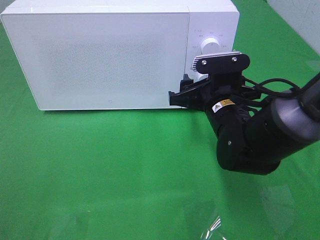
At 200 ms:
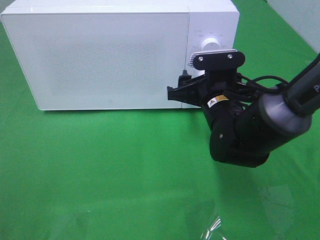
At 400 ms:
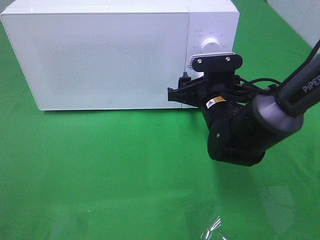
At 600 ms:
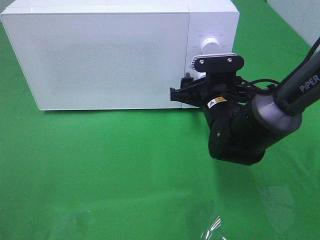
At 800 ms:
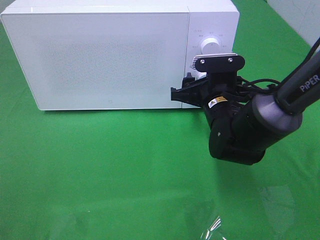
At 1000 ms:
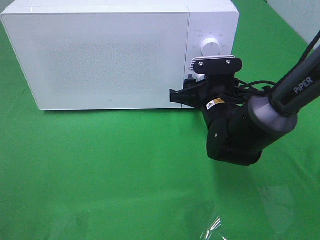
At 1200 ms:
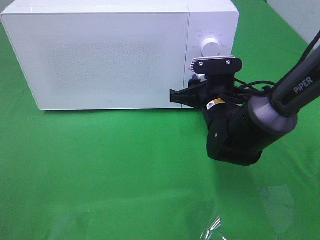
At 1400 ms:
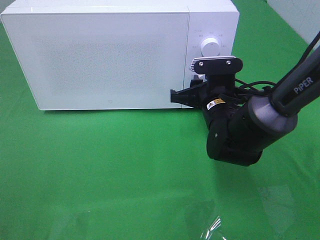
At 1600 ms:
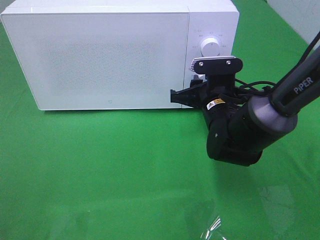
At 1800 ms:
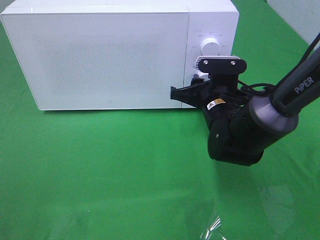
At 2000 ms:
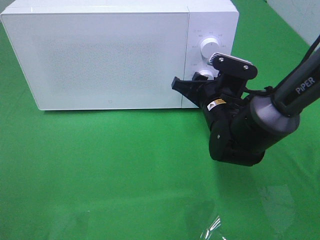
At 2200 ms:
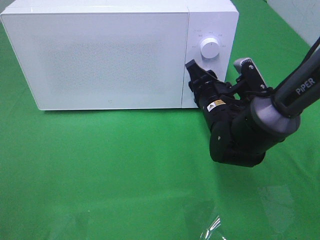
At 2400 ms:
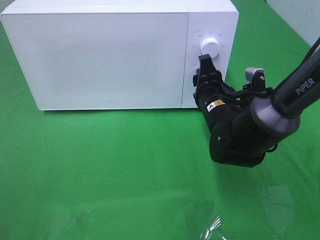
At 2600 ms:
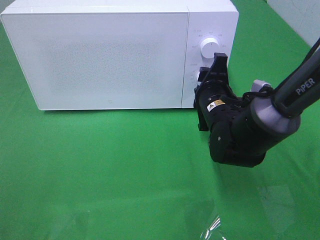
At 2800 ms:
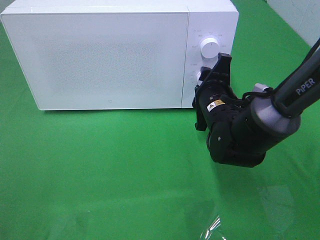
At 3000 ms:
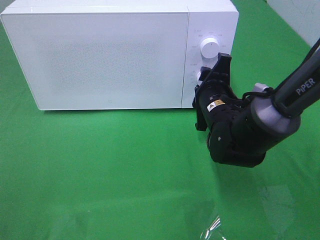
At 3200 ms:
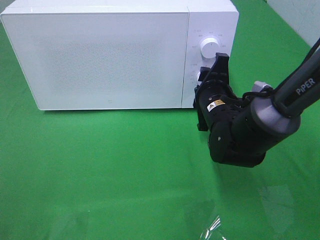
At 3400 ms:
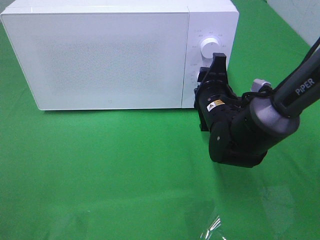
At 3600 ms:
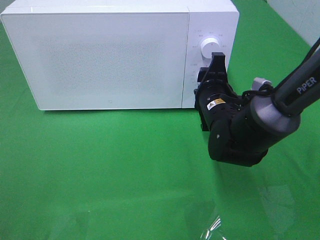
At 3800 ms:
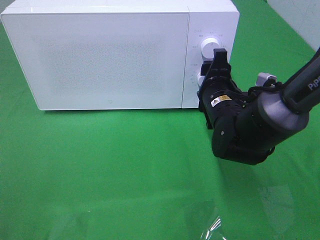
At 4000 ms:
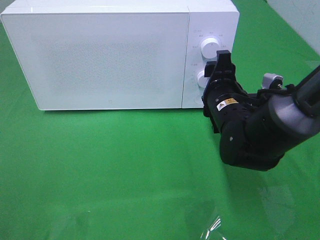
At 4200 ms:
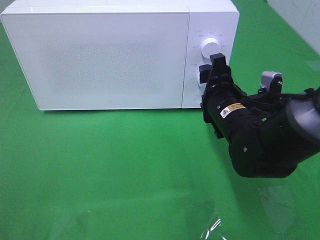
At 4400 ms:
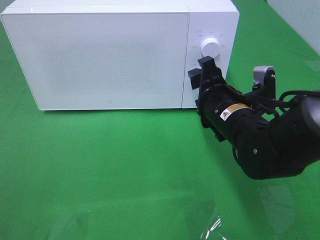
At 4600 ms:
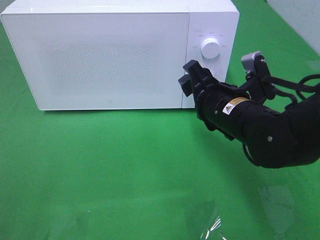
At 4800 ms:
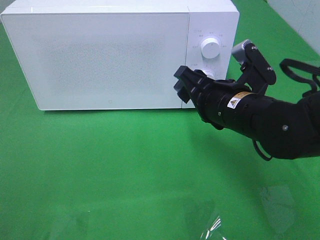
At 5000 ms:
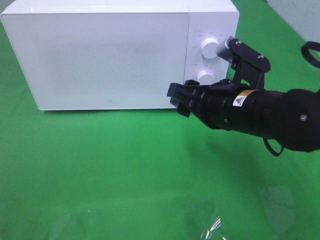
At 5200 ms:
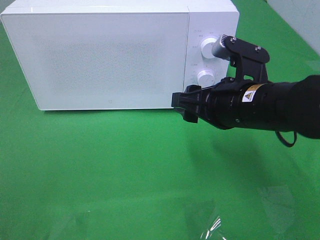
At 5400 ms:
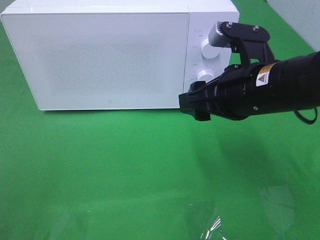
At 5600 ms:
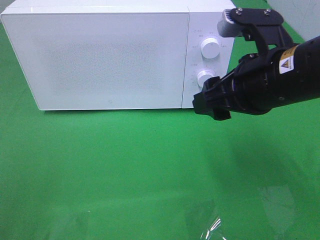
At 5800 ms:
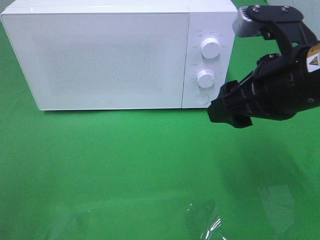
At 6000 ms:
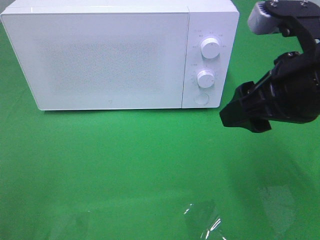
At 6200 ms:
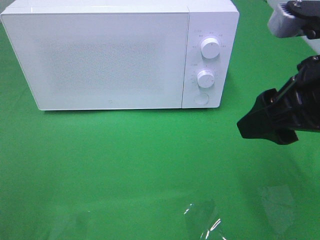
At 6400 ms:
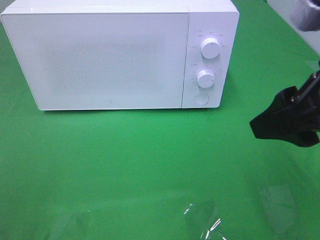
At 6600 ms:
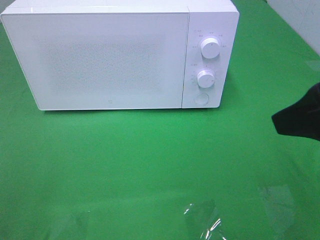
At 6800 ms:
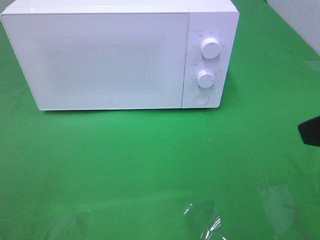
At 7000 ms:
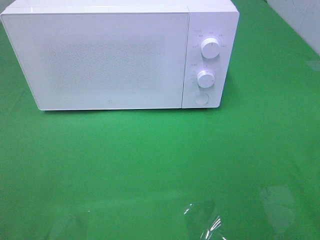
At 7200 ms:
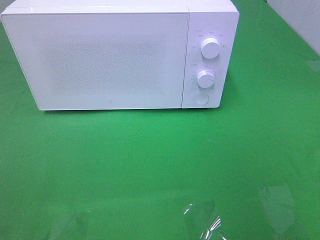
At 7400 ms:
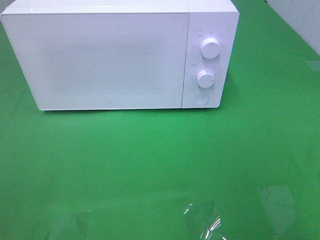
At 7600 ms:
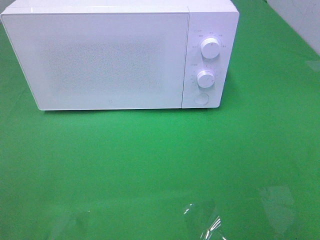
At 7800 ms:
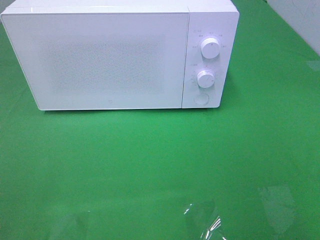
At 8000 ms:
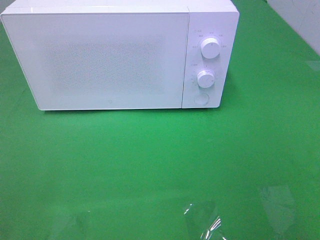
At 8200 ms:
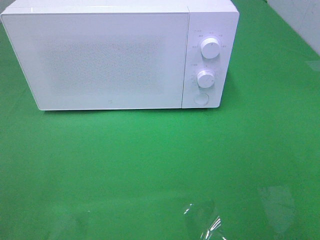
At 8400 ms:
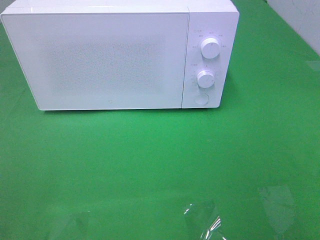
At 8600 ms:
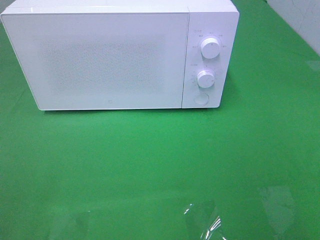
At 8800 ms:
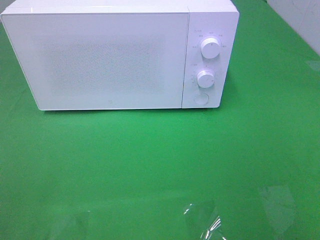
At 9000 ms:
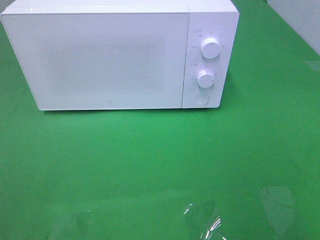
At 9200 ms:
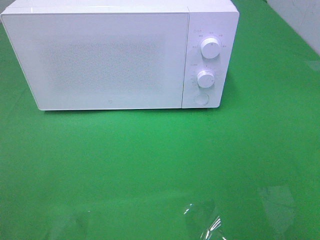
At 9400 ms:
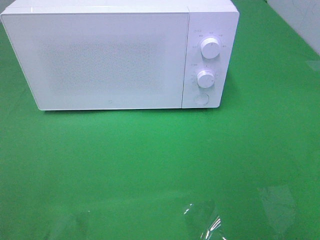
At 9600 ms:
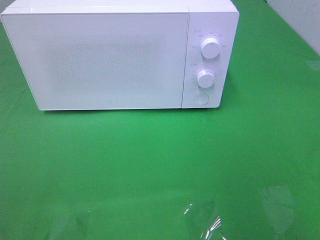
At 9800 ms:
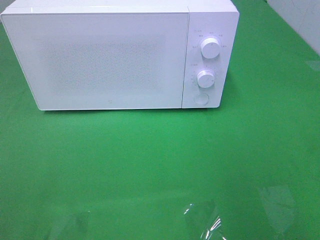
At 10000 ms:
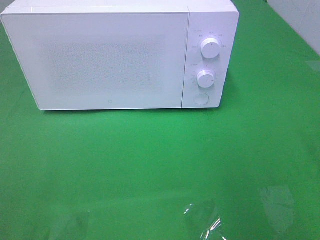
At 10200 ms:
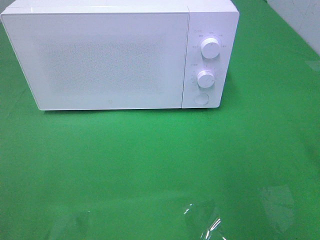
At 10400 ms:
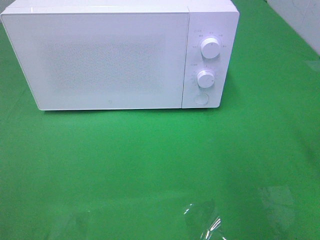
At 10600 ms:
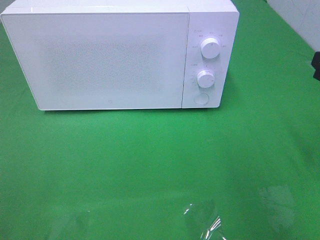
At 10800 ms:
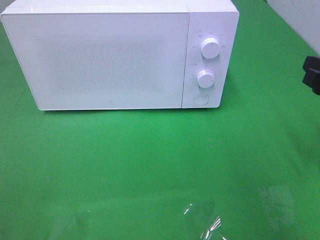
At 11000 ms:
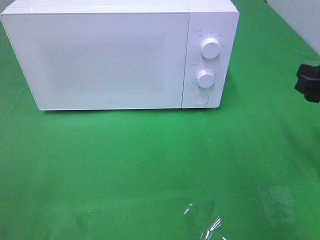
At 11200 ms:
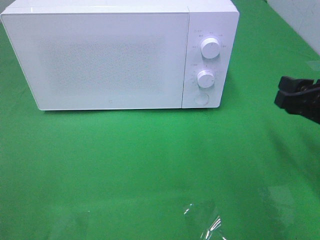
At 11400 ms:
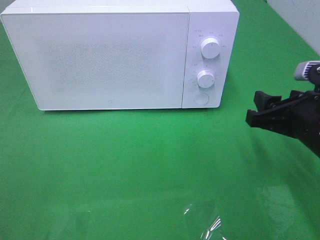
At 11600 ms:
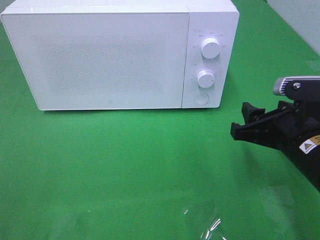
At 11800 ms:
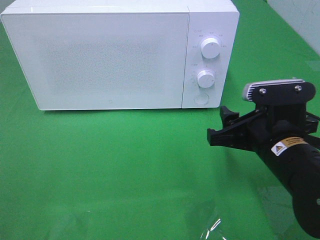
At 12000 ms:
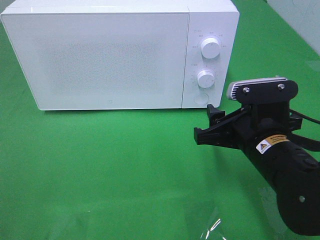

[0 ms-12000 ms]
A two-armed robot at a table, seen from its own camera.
Task of the whole recording: Heat the burger.
Step, 0 ms to 4000 ms: Right hand: twist timer button.
0 ms to 1600 ms: The right gripper closes.
3000 ms to 4400 ms: The right gripper changes place by about 5 cm.
4400 ms to 6000 ms: The right gripper is displaced upward and backward by approximately 15 cm.
6000 ms to 7600 ms: The right gripper heads backward and to the right, covering roughly 20 cm.
10400 ms to 12000 ms: The right gripper goes some 20 cm to the left and downward.

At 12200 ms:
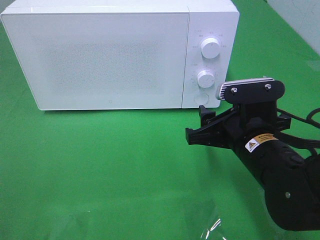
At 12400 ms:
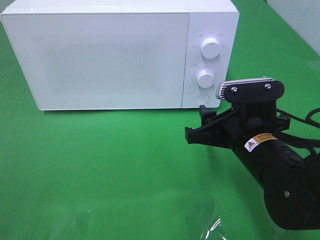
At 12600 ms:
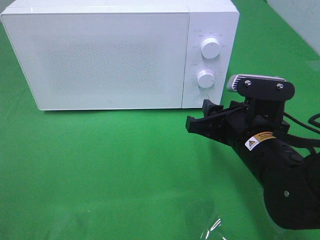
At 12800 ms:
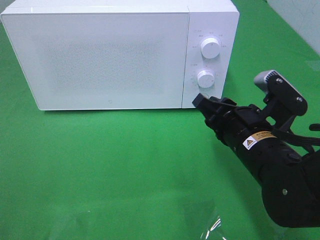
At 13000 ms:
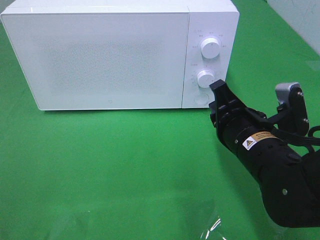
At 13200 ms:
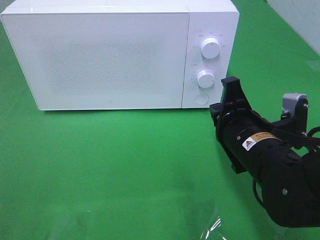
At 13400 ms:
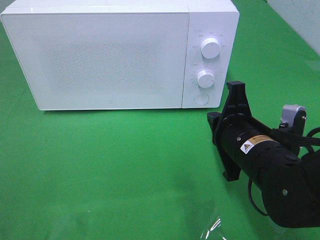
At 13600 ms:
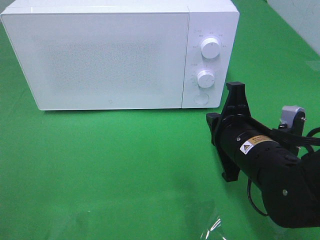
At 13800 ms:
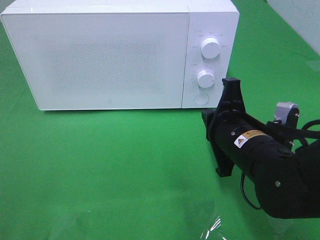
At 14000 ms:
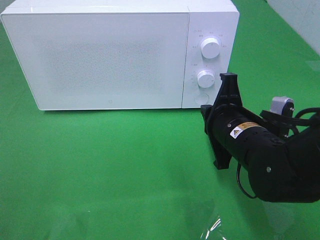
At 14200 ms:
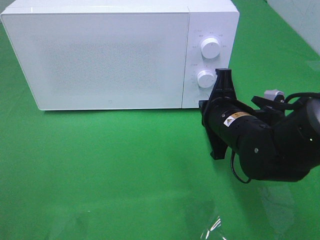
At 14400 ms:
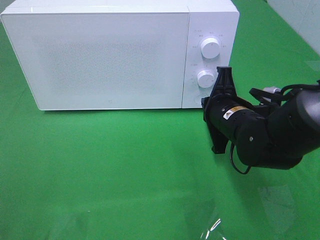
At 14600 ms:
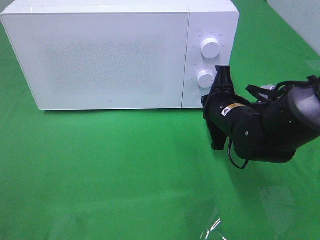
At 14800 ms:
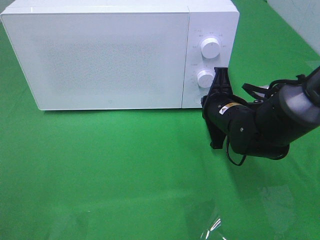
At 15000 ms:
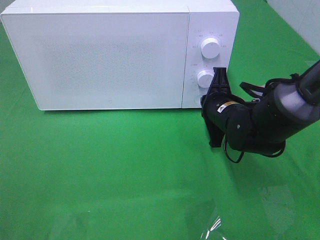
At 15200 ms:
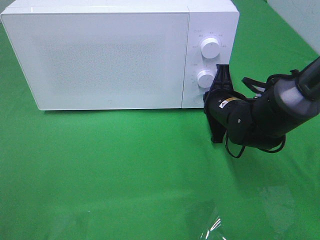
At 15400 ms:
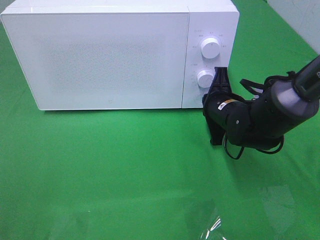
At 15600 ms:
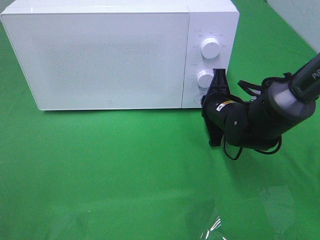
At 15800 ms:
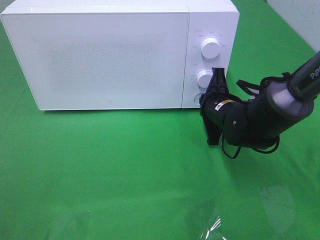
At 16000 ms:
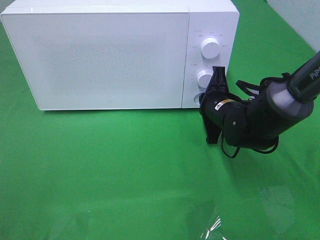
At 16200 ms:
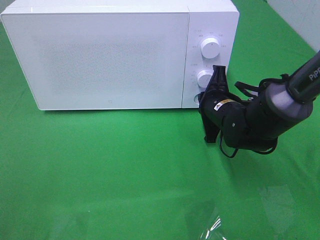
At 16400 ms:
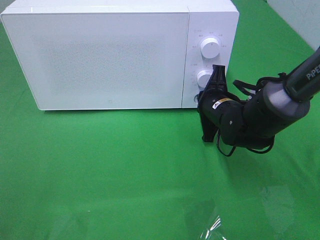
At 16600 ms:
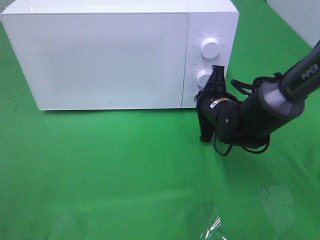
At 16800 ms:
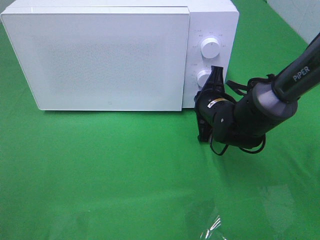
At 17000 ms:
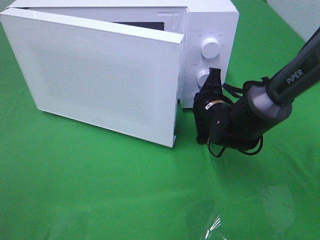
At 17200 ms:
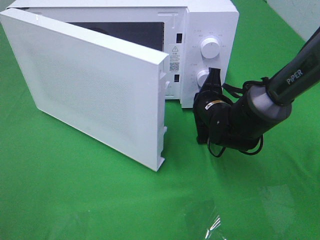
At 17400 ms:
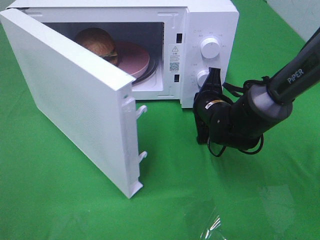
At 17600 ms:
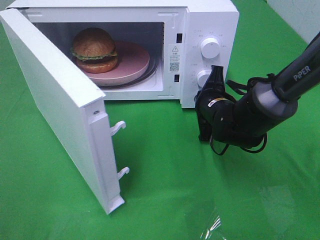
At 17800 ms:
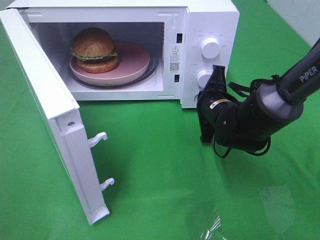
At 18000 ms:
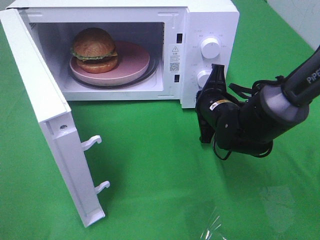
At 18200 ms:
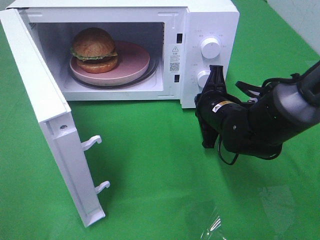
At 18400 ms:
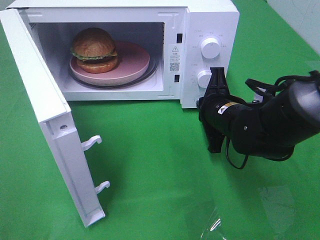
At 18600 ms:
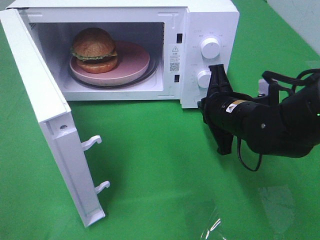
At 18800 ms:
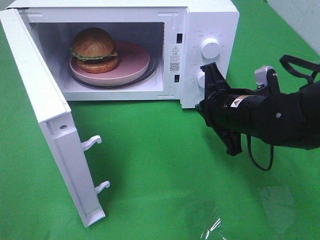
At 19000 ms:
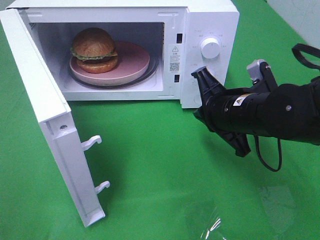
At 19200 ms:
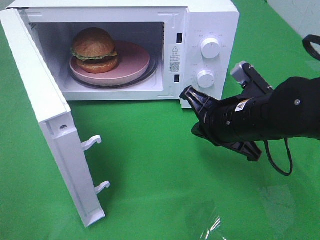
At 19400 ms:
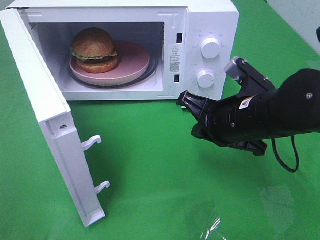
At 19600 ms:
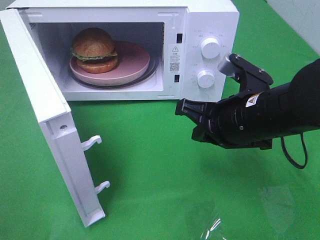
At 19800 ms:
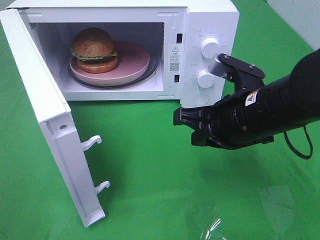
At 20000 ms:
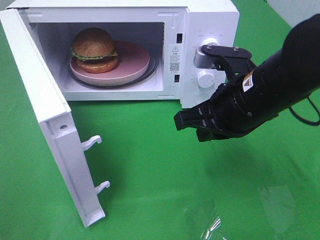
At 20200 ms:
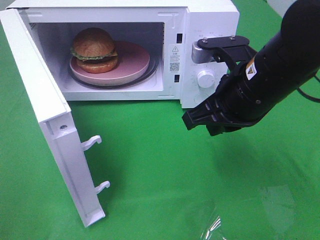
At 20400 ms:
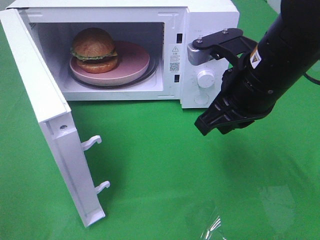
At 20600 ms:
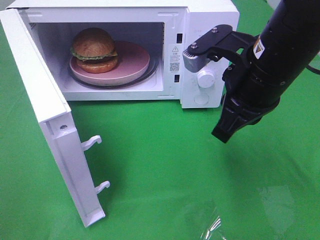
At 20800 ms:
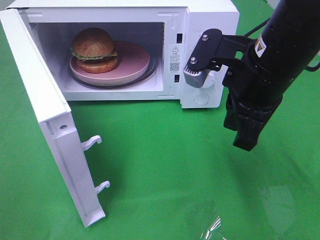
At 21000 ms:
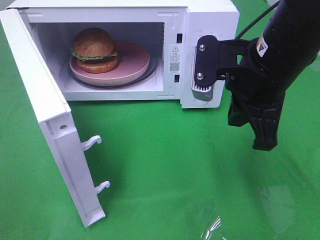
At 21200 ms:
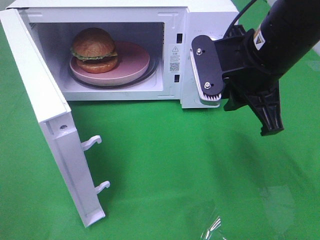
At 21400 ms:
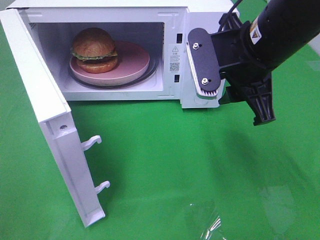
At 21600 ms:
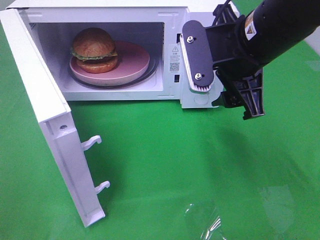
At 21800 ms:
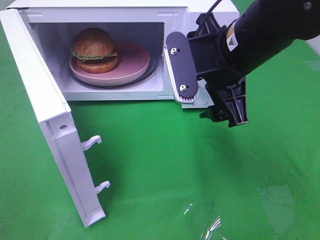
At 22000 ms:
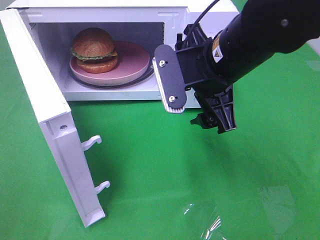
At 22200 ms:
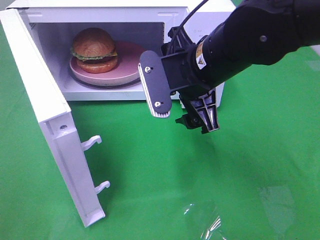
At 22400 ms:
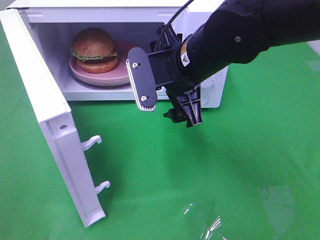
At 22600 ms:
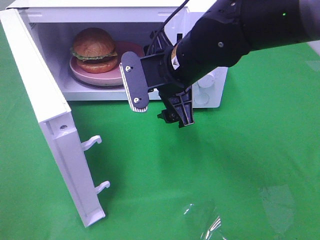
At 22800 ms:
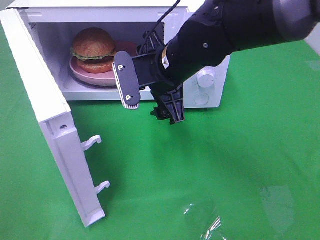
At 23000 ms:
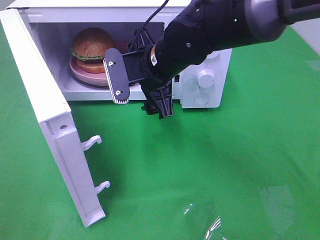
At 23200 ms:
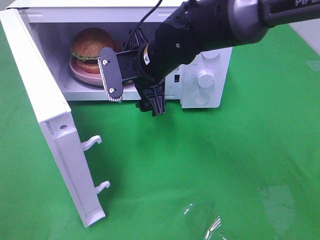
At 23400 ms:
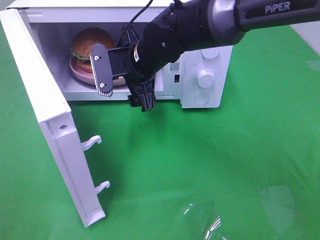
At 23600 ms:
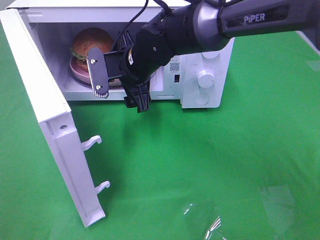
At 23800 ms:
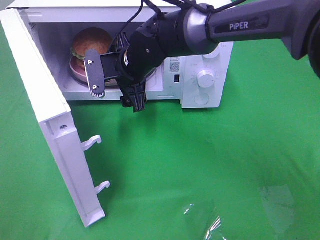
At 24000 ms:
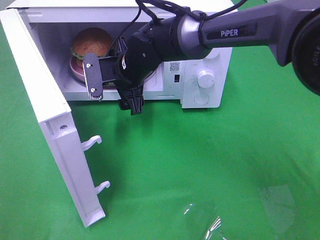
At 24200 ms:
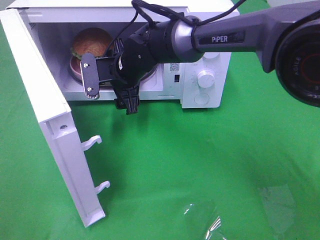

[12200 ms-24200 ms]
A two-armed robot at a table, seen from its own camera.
Task of the whole recording: Heat the burger.
Step, 12200 ms to 18200 ms: Right hand: press the switch.
12200 ms to 13800 ms: The right gripper closes its fingers.
13800 ms to 15200 ms: The right gripper travels forward by some 10 cm.
15200 ms to 16600 ms: The grippers stay close to where they were, moving slightly.
18200 ms to 19800 ms: The right gripper shifts about 10 cm upward and backward.
19800 ms to 21200 ms: The right gripper is displaced upward by about 5 cm.
21200 ms to 22600 ms: The right gripper is displaced to the left and downward by approximately 10 cm, and opens its fingers.
22600 ms to 24200 ms: The right gripper is displaced forward, to the left and downward by about 15 cm.
